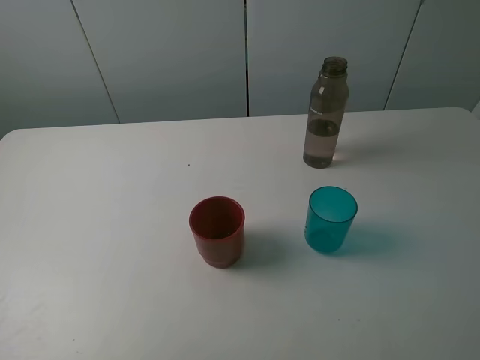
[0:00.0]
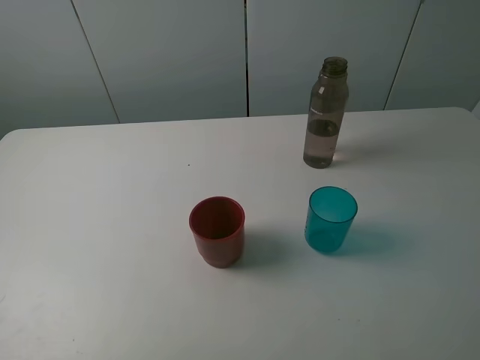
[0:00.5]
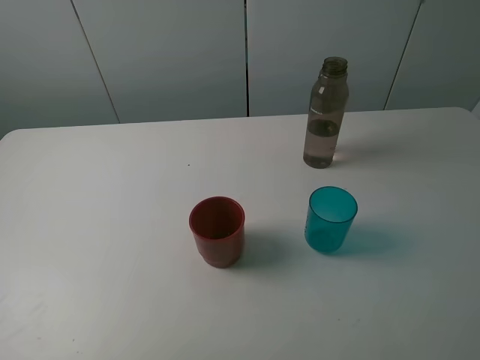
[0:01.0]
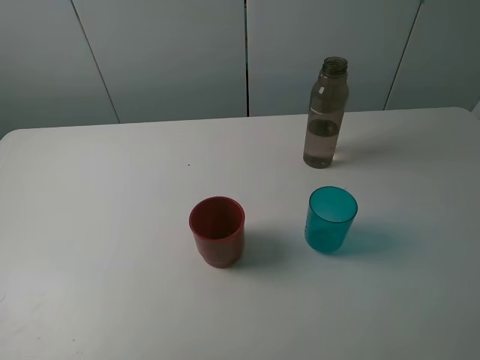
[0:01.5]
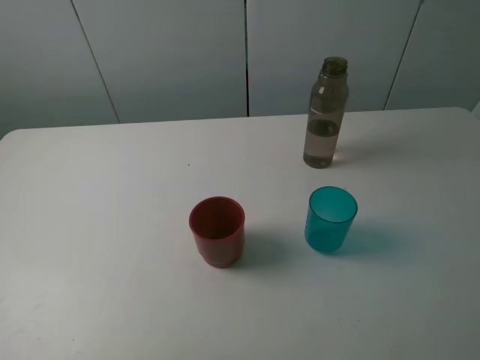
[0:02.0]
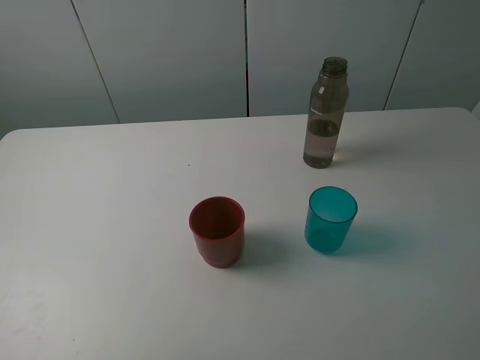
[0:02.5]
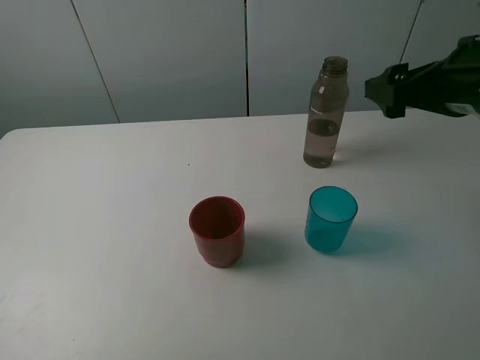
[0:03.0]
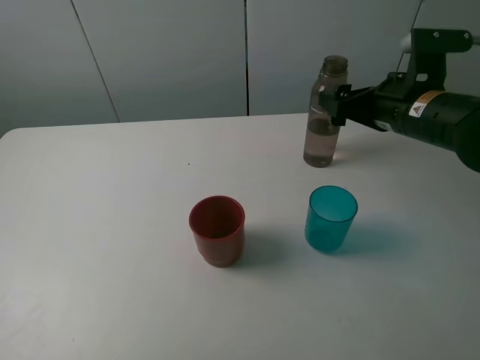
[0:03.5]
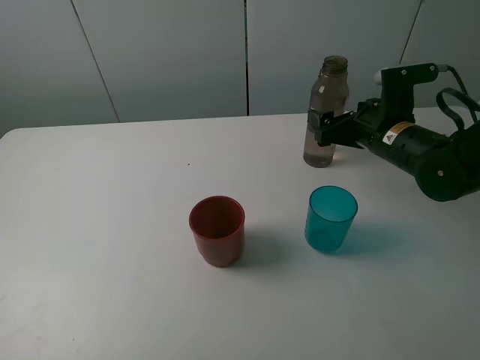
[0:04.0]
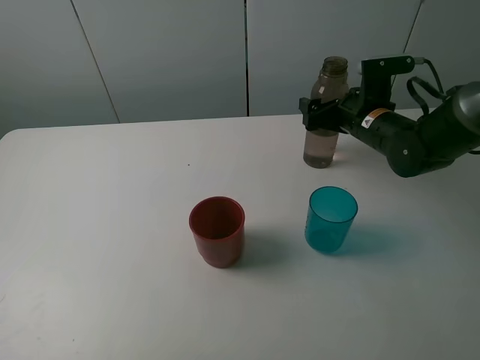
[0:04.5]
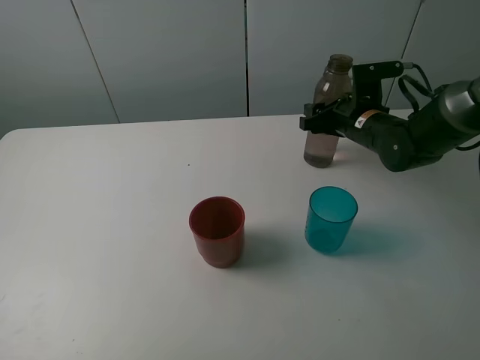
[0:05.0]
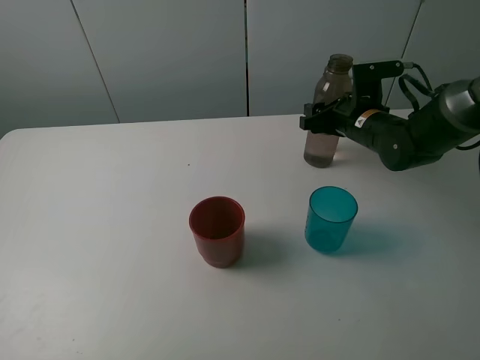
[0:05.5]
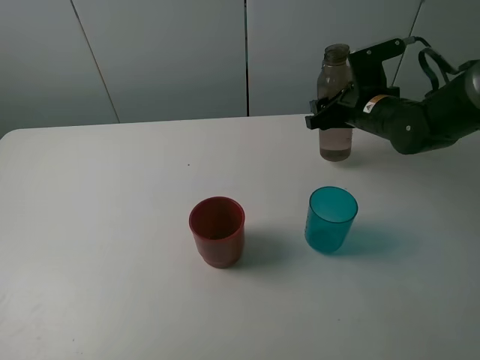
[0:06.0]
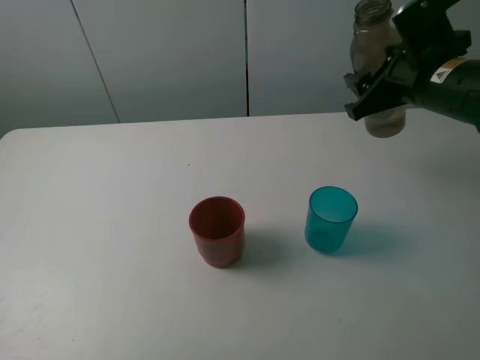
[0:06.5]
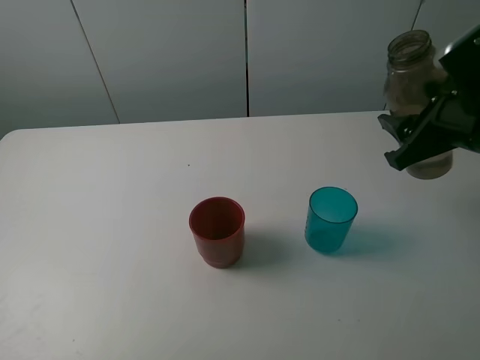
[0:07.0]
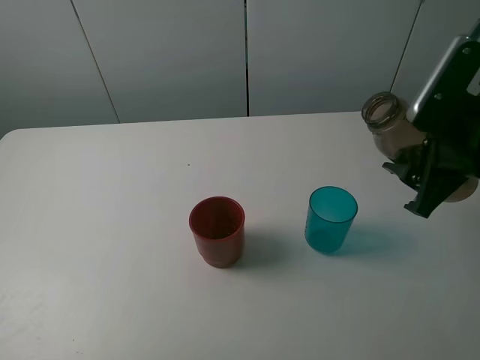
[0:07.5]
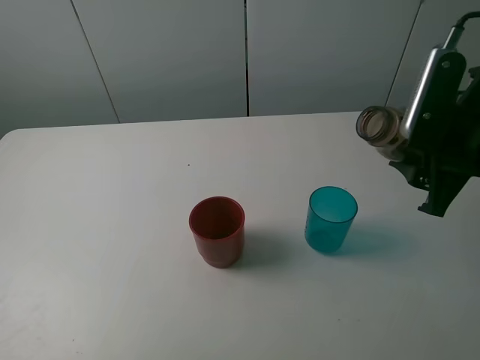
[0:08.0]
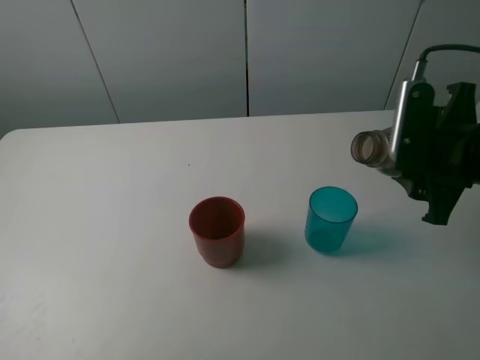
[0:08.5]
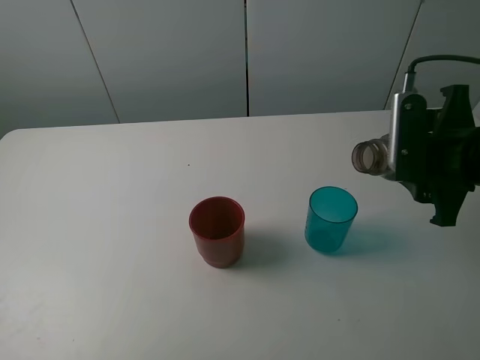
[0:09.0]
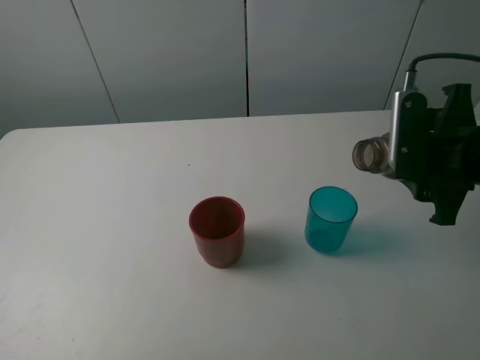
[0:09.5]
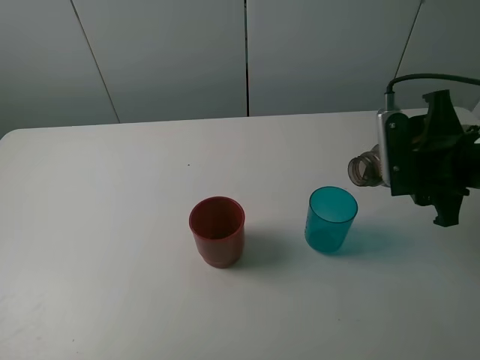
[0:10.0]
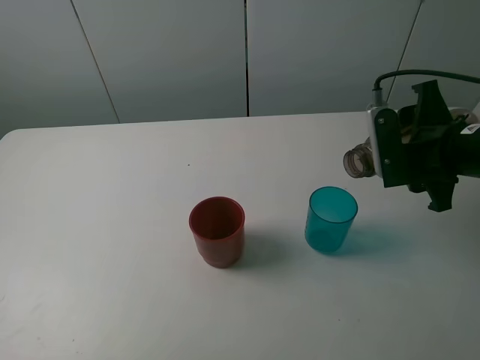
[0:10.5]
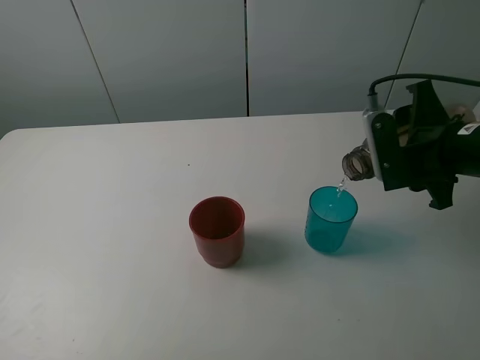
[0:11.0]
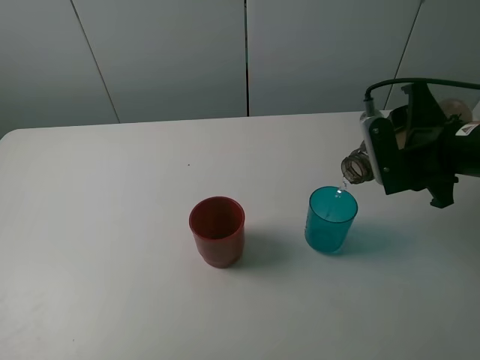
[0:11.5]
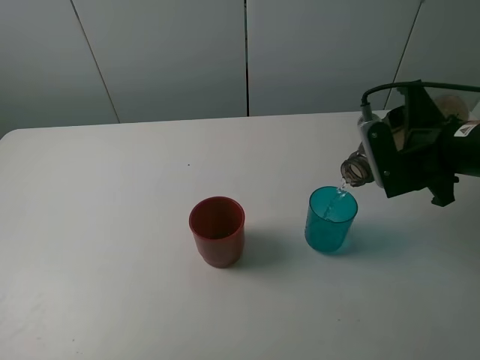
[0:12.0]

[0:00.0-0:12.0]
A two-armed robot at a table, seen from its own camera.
Task of the whole recording: pick up the bottle and pour water into the cup, then pick up the cup containing water and pour it into another cup.
Step, 0:00.0 to 0:05.0: Grasp the brown bottle with the right gripper.
0:00.0 to 0:02.0: The two grippers keep their place.
0:02.0 to 0:04.0: The right gripper travels forward and downward by about 35 cm.
0:04.0 to 0:06.0: The right gripper moves forward, roughly 5 cm, and closes.
0:06.0 to 0:08.0: The right gripper heads backward, covering roughly 15 cm.
0:10.0 to 0:12.0: The grippers stay close to where they were, moving slightly.

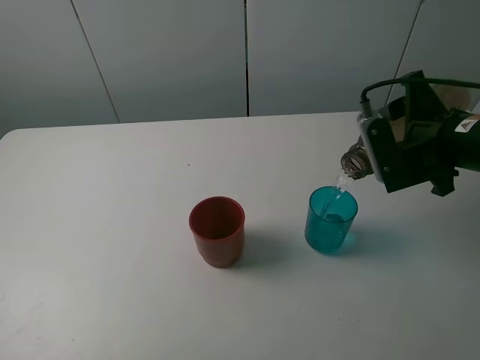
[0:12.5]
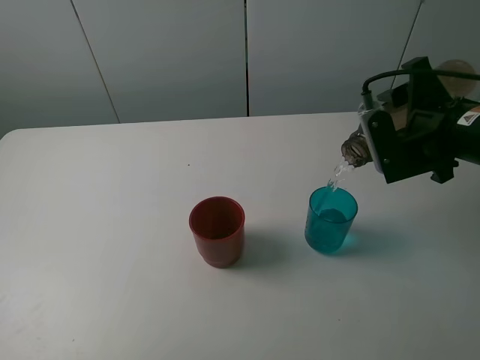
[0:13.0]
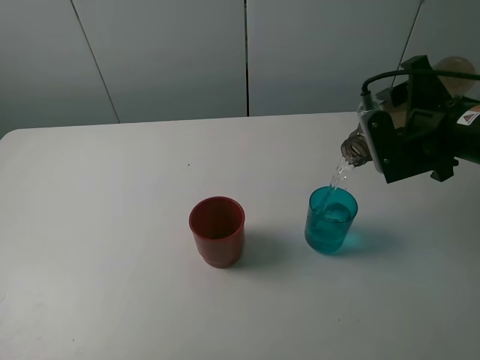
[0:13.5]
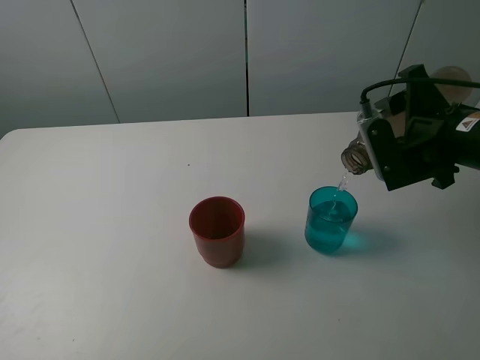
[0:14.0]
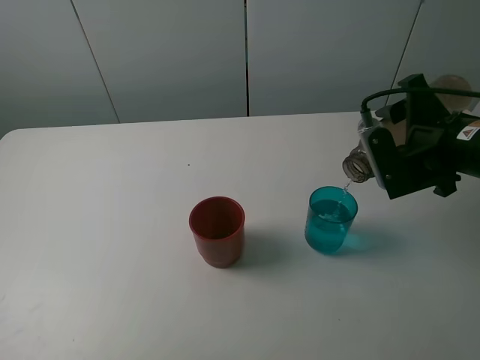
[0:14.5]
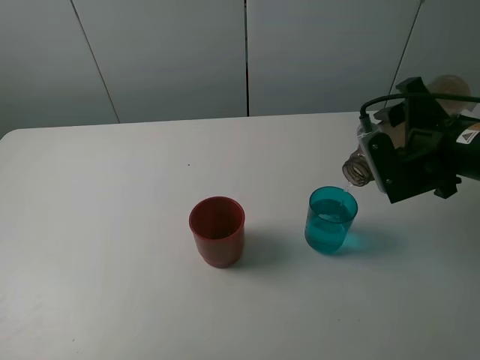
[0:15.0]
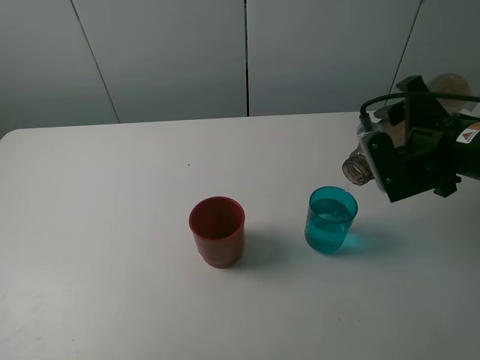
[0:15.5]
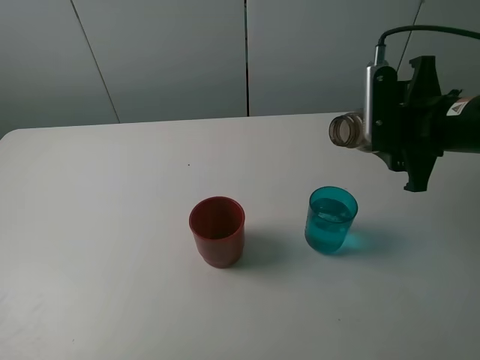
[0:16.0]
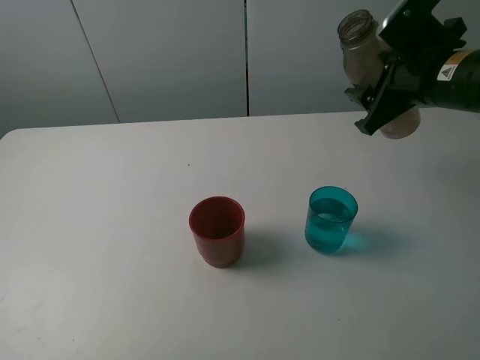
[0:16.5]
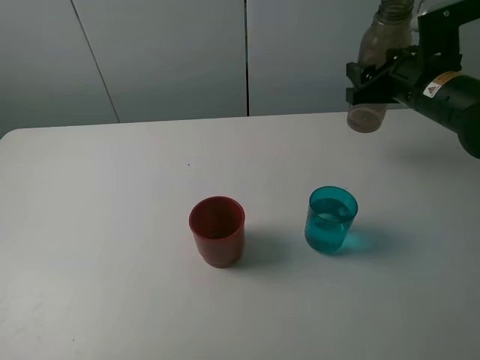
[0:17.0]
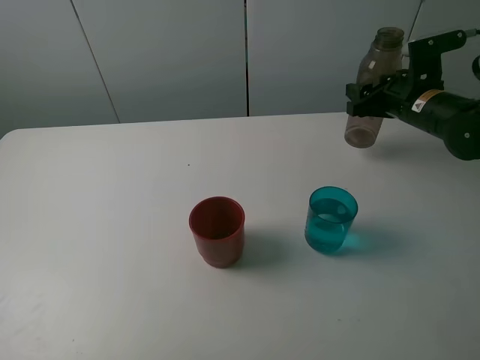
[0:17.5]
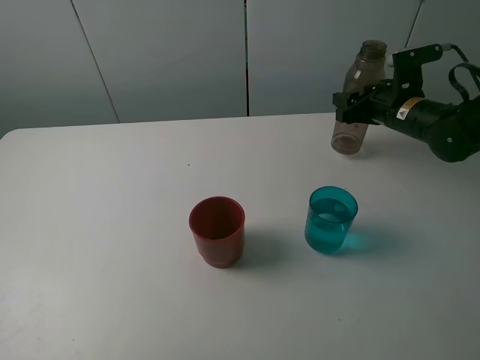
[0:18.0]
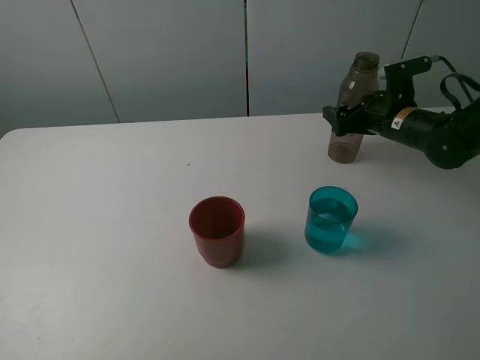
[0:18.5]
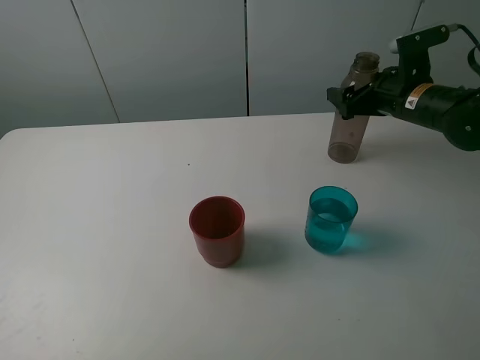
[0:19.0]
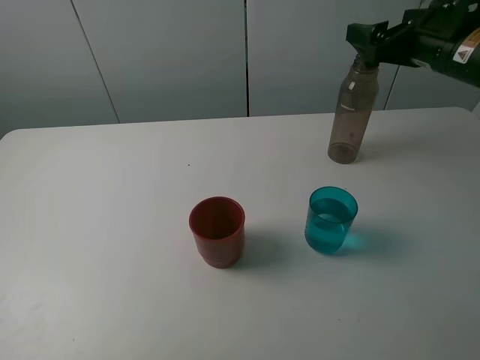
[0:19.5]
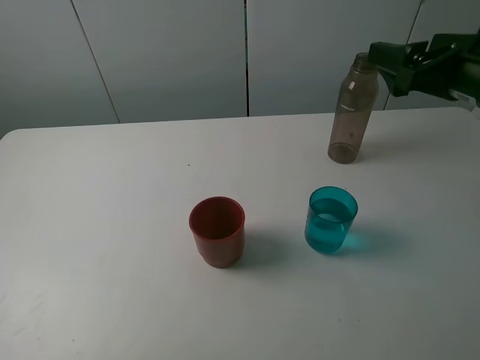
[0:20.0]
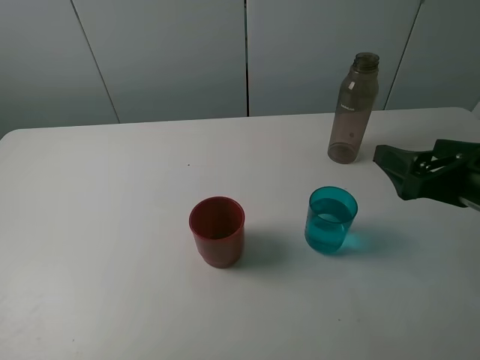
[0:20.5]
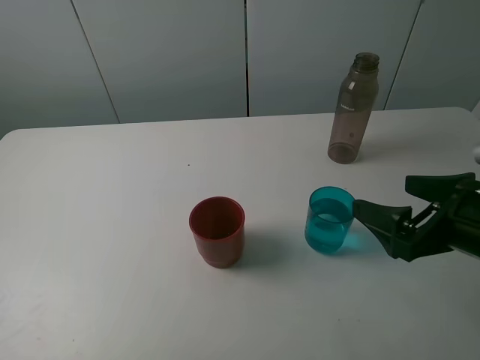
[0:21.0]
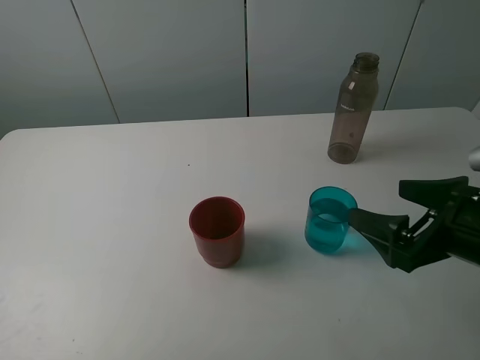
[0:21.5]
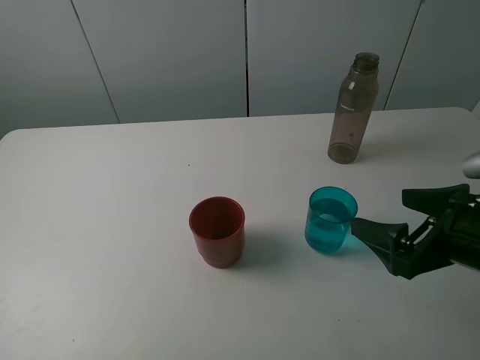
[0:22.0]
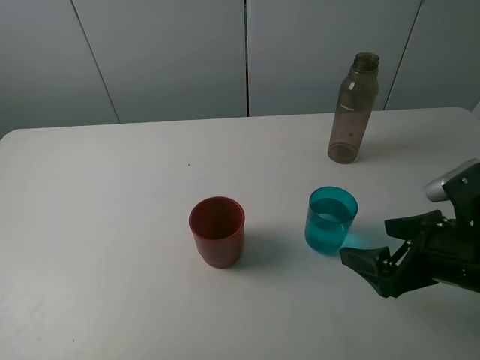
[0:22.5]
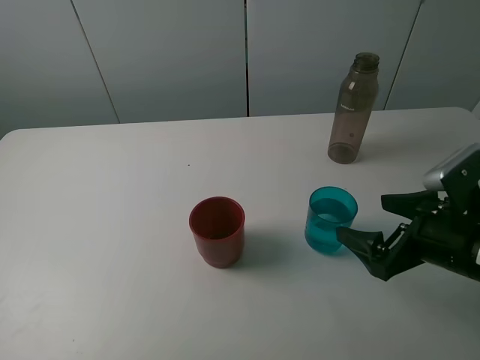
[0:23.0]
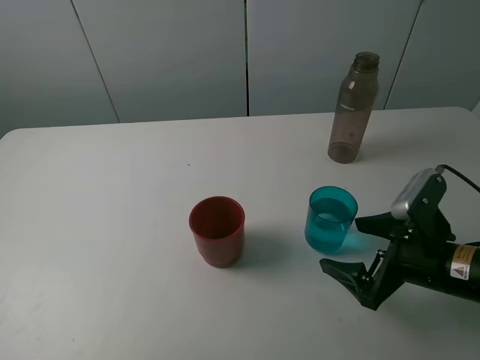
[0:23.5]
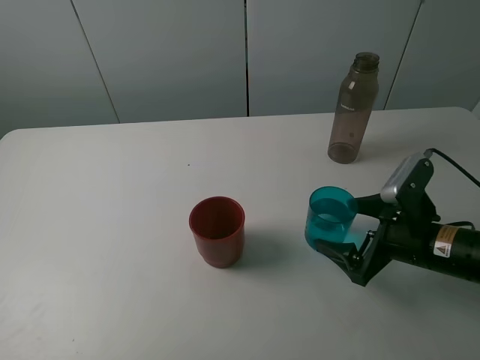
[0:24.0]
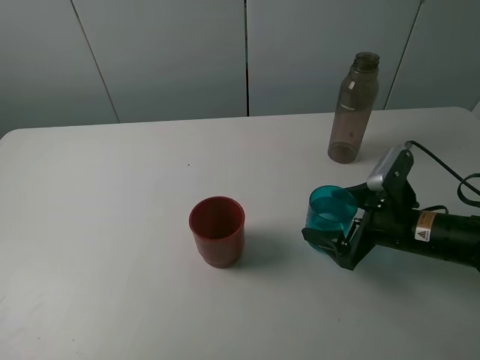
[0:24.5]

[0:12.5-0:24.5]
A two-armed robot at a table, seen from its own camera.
Task of the whole recording: pick up the bottle and pour water into the cup, then pick up the cup containing water and pour it into another cup.
Step, 0:12.5 to 0:15.5: Pour water from brown bottle to blue cup with the right gripper.
Step, 0:16.0 to 0:18.5: Place the brown bottle with the right gripper.
0:12.5 to 0:14.5: The grippers stay close to where they were, moving slightly.
0:14.5 to 0:16.5: The right gripper heads forward, covering about 5 cm.
0:16.5 to 0:18.5: The right gripper travels downward and forward by approximately 15 cm, and opens up.
0:18.5 to 0:20.5: The right gripper travels backward by about 25 cm.
0:20.5 to 0:22.5: The right gripper heads downward, covering about 5 cm.
0:22.5 to 0:24.5: The right gripper travels forward and downward by approximately 10 cm.

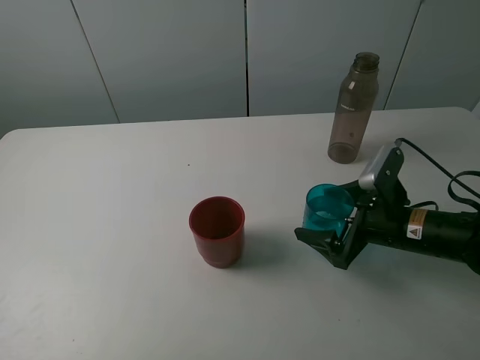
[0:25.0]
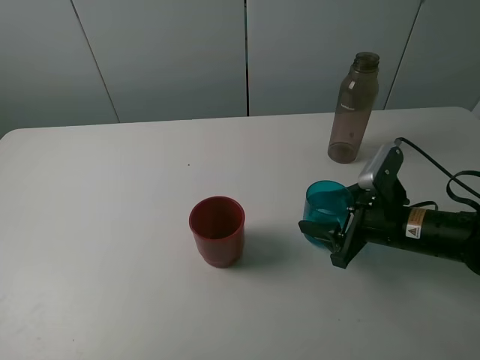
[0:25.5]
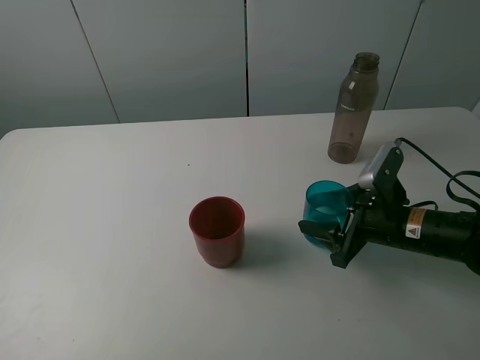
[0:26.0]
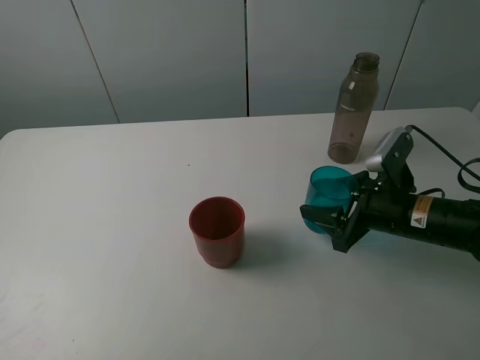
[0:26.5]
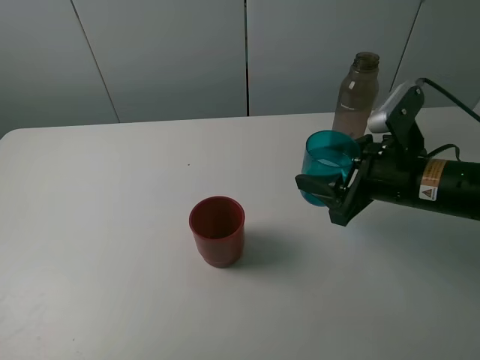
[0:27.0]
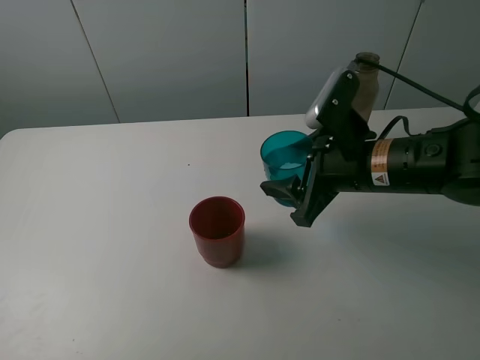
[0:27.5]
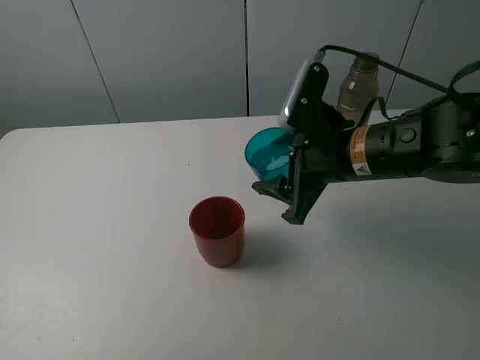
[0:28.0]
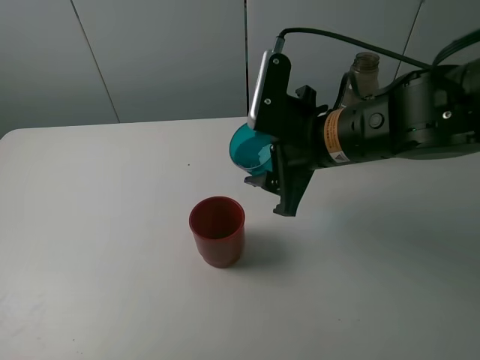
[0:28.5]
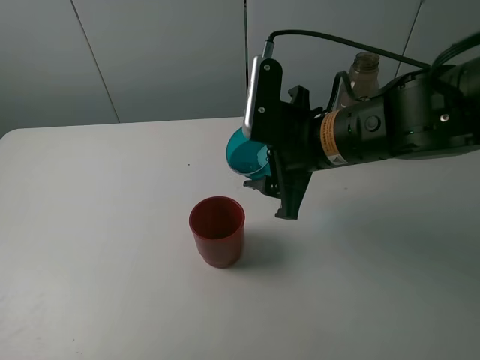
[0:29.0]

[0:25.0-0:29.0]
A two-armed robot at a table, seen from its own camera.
Task of the whole recording: pick up the bottle and pour water into the cup, then pick up the cup containing water and pour it into another cup.
0:25.0 to 0:27.0: The right gripper heads upward, covering about 10 cm, and closes.
0:27.0 to 0:29.0: The right gripper travels to the left by roughly 10 cm.
